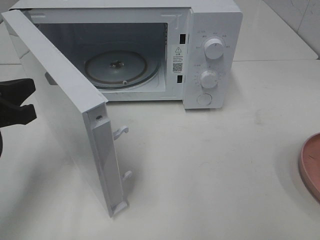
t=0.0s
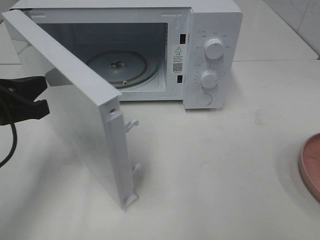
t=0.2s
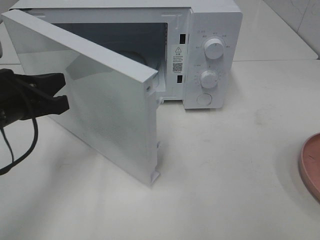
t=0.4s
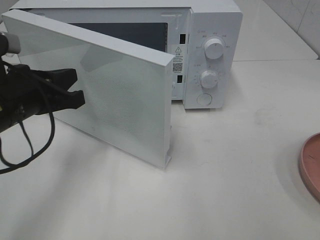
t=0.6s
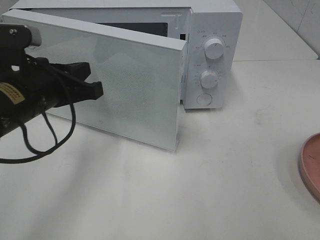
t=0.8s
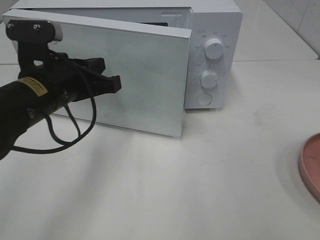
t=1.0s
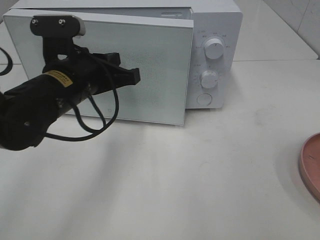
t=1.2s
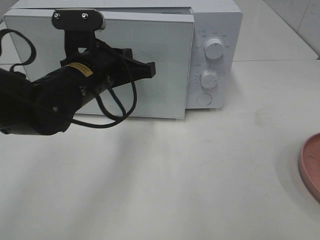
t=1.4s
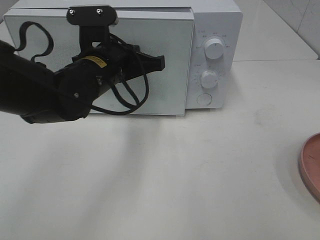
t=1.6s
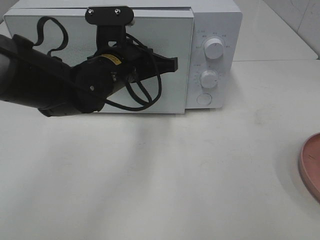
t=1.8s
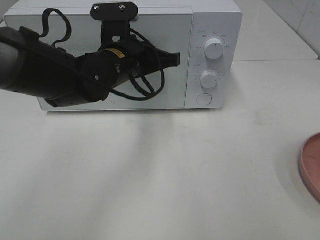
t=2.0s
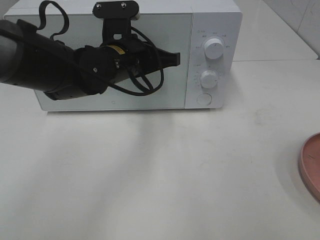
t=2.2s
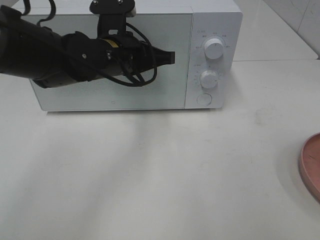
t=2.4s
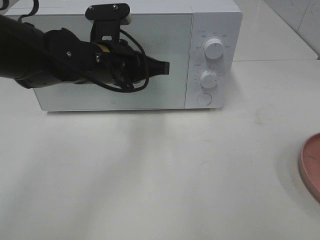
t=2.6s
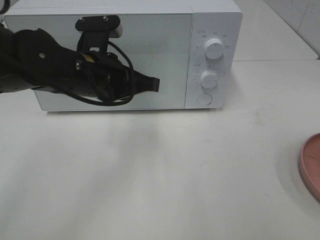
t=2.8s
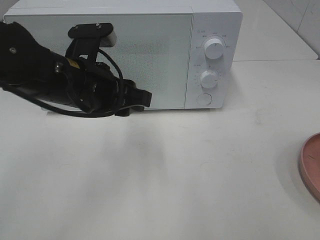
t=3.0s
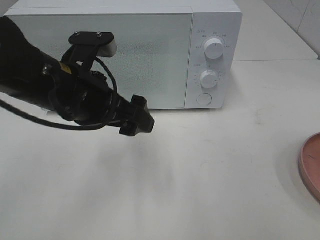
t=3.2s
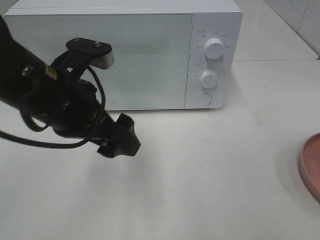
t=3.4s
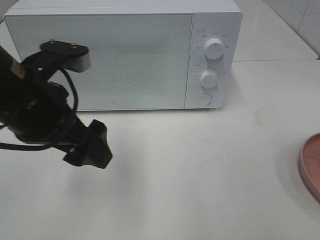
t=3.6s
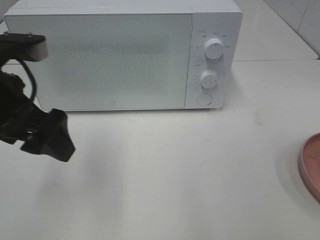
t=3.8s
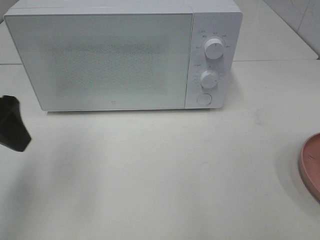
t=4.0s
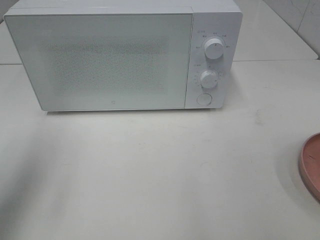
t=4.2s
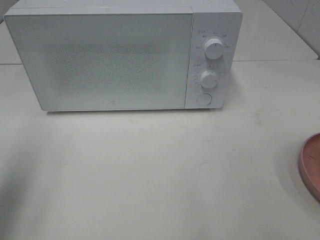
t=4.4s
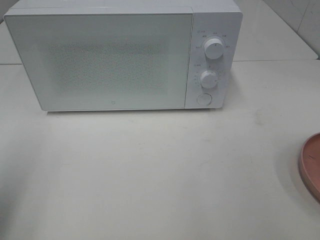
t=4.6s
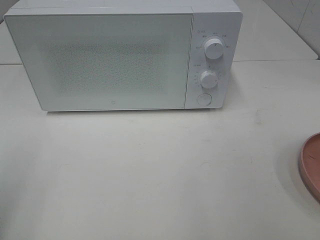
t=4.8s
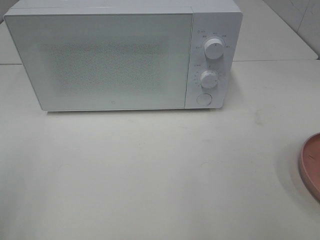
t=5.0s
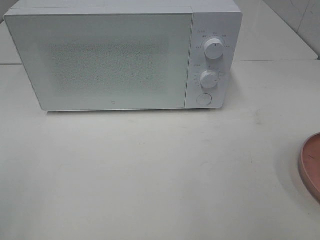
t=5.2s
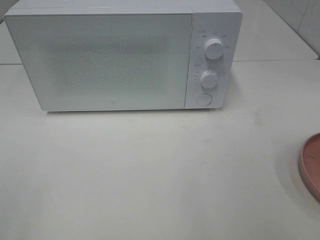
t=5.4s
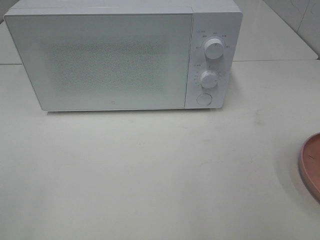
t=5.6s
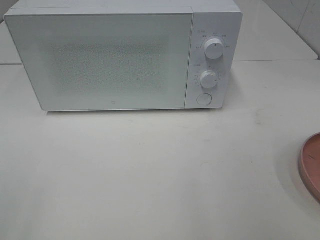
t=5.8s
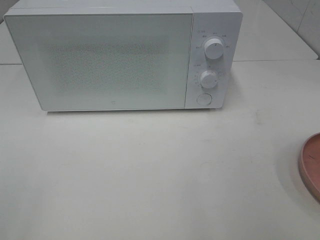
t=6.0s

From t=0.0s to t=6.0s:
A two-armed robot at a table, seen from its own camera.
Task of the whole recording: Heat the burger.
Step, from t=0.0s to t=2.8s: Left hand: close the microwave door.
From t=0.0s to t=1.6s: The left gripper is displaced to the right and forward by about 20 cm.
From t=1.6s to t=3.0s: The left gripper is displaced backward by about 5 cm, and opens its fingers.
From t=3.0s to t=4.4s: The left gripper goes some 25 cm to the left, backward and upward, and opens.
From t=4.4s to t=6.0s: The left gripper heads backward, covering some 15 cm.

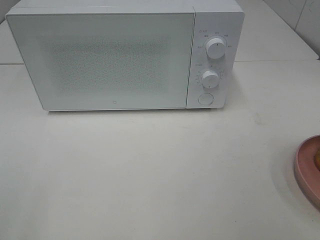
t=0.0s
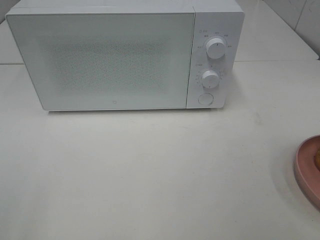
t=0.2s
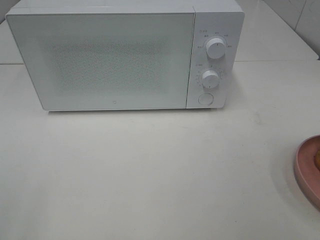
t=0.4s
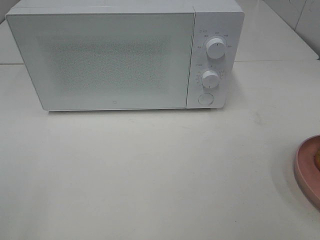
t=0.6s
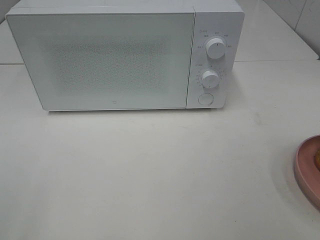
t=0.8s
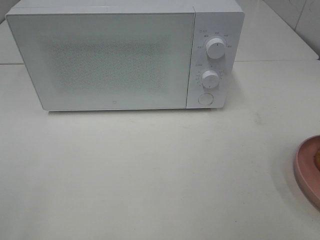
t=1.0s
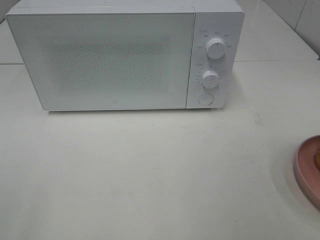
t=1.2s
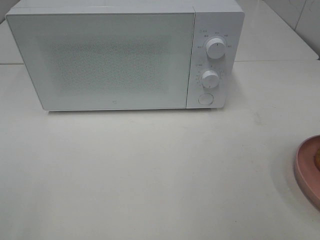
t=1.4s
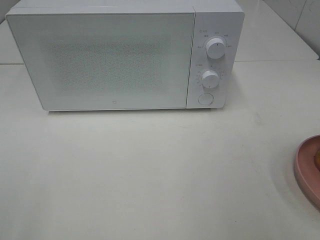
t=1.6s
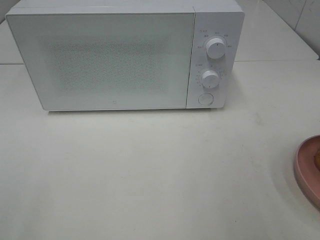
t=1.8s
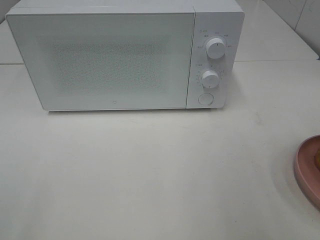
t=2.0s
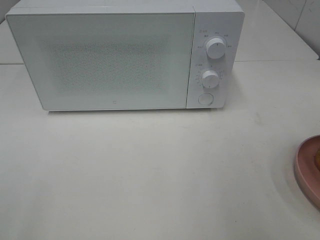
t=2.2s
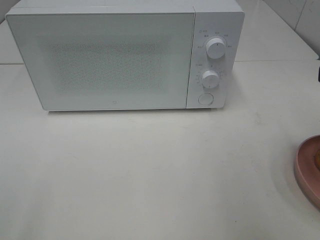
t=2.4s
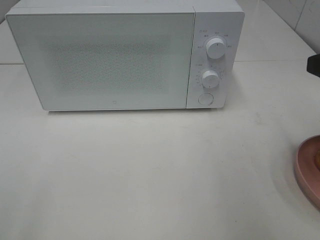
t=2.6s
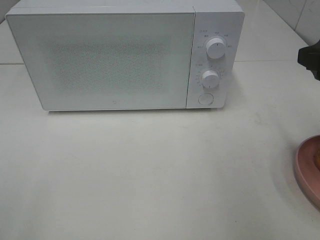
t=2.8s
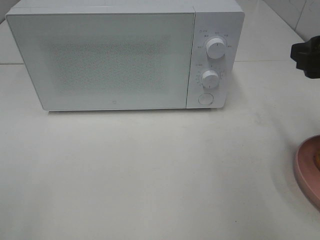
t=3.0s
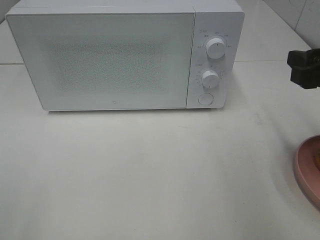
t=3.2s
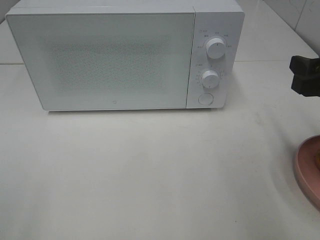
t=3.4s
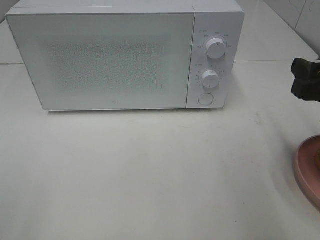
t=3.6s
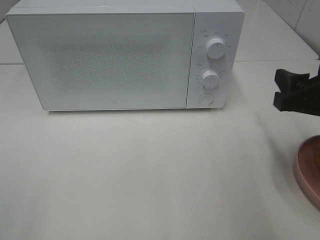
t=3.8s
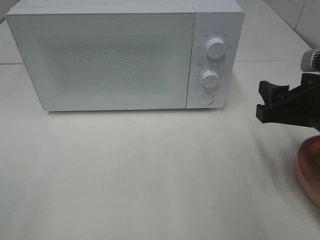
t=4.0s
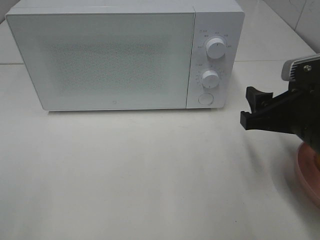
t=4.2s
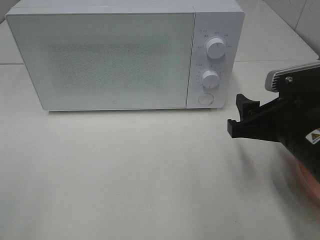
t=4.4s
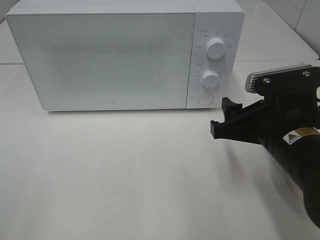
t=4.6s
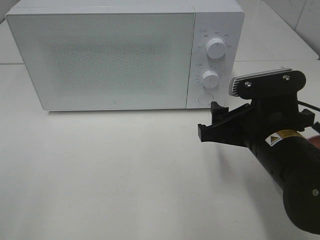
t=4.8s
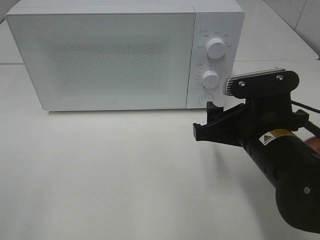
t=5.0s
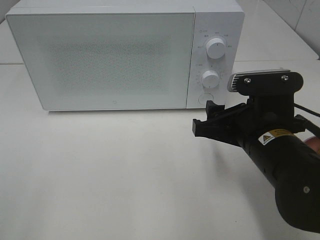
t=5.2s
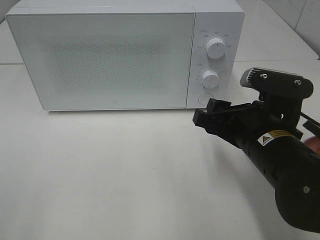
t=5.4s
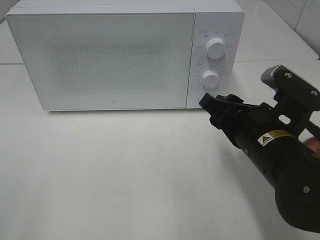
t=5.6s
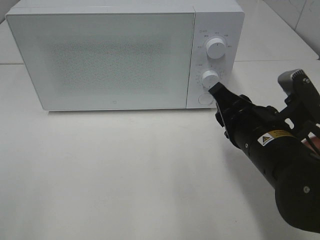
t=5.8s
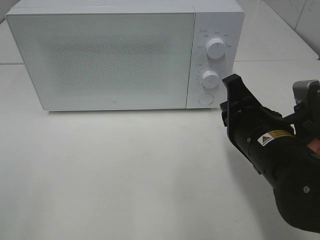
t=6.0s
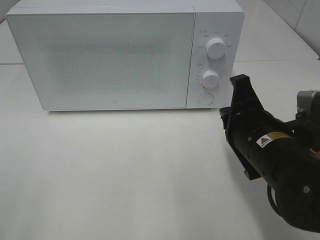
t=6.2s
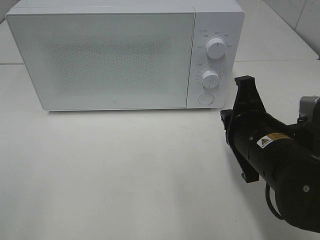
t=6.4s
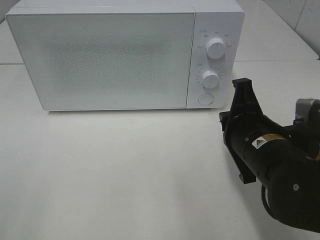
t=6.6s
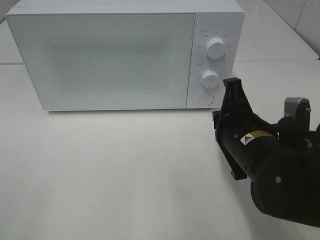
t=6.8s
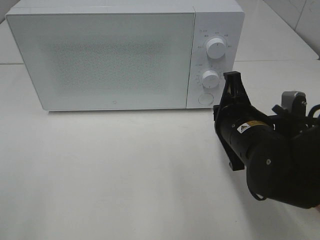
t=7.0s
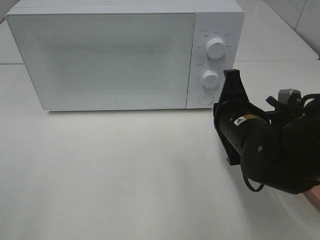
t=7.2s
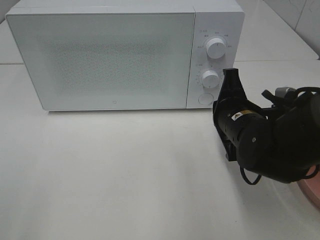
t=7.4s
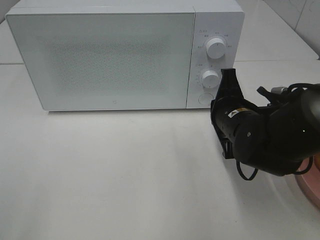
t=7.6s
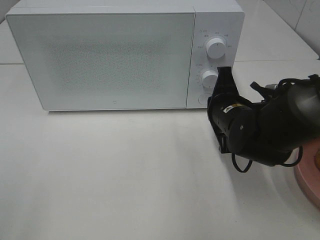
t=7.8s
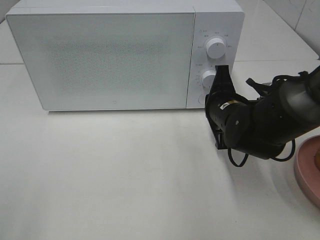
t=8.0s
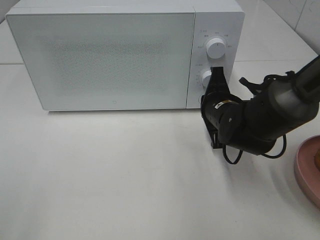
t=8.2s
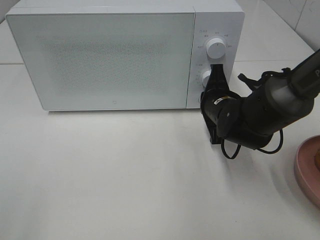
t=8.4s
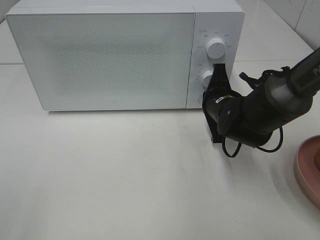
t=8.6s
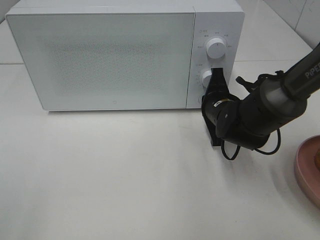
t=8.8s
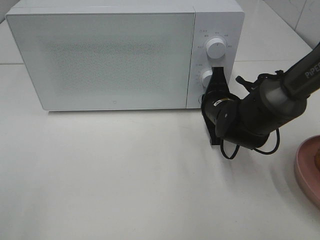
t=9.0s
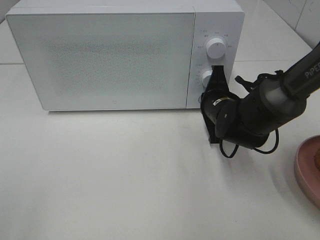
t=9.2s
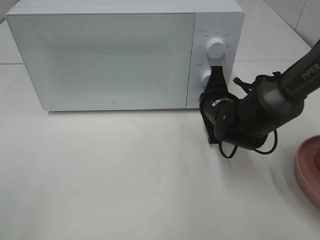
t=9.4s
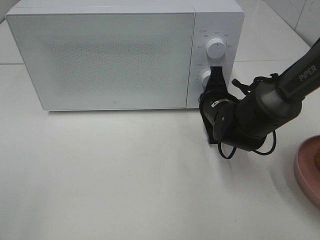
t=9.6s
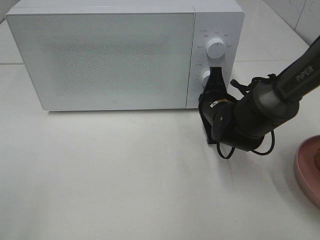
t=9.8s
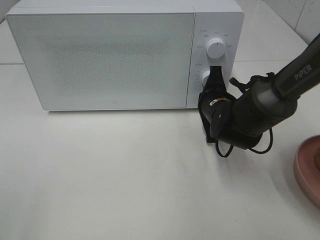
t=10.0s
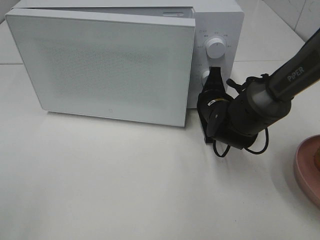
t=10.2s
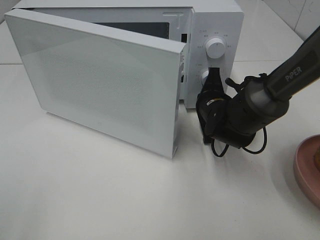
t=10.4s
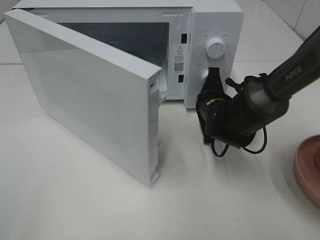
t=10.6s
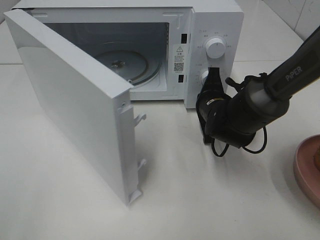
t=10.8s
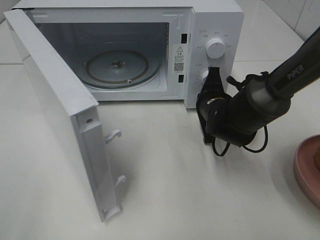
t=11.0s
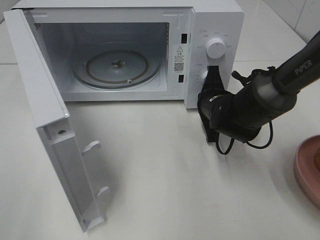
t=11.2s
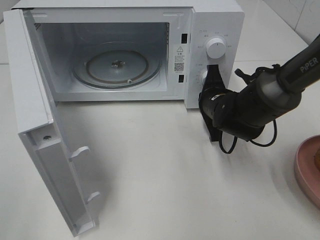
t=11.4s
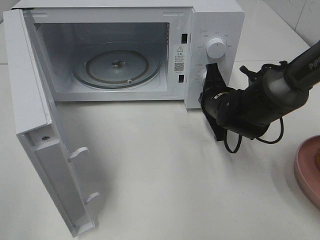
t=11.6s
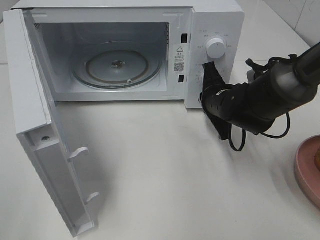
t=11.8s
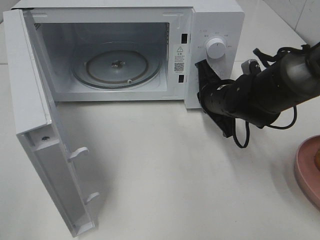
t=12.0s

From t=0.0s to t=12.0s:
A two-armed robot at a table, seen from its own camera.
Task of the whole recording: Heat the burger.
Step, from t=0.0s to t=12.0s: Right hand: press the switch.
From t=1.6s to t=3.0s: The right gripper travels forward by approximately 15 cm.
From t=3.0s to t=4.4s: The right gripper heads downward and to the left, covering about 10 cm.
From t=4.4s to t=6.0s: The right gripper changes place by some 5 cm, and closes.
From t=6.0s to t=7.6s: The right gripper moves forward, some 10 cm.
From t=7.6s to t=9.0s: The right gripper heads forward, covering approximately 5 cm.
From t=9.0s to t=10.4s: The grippers move only a little.

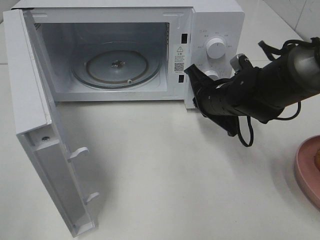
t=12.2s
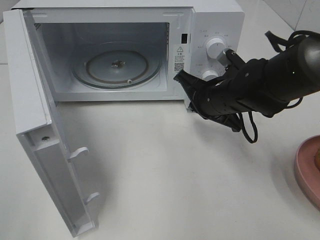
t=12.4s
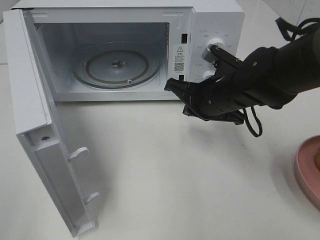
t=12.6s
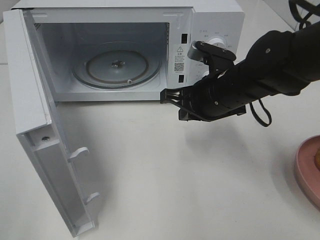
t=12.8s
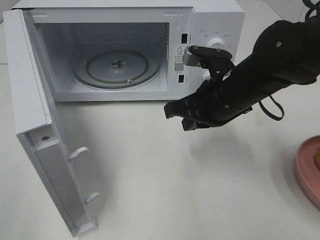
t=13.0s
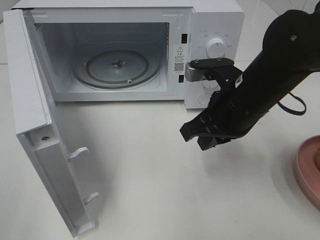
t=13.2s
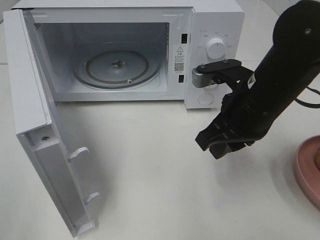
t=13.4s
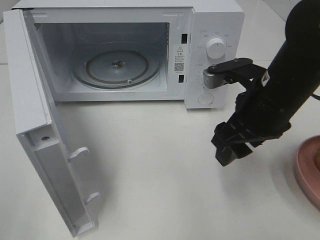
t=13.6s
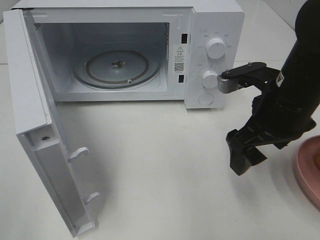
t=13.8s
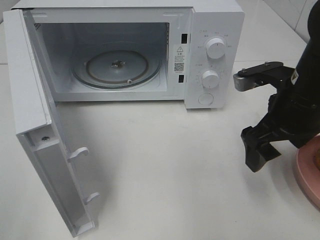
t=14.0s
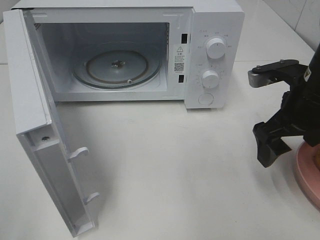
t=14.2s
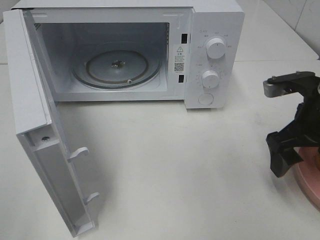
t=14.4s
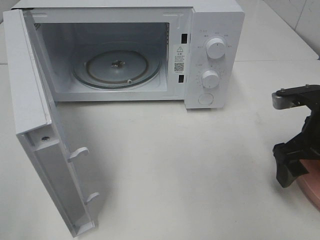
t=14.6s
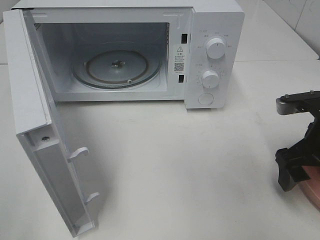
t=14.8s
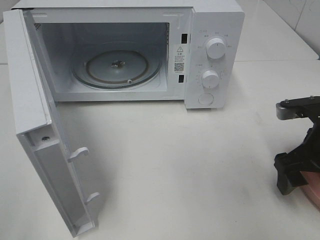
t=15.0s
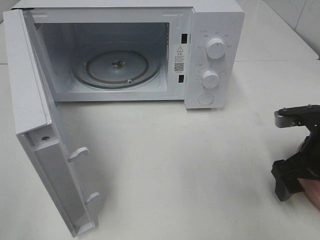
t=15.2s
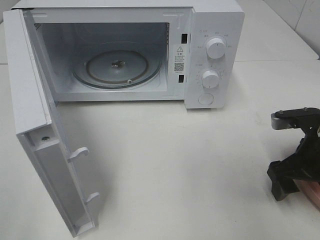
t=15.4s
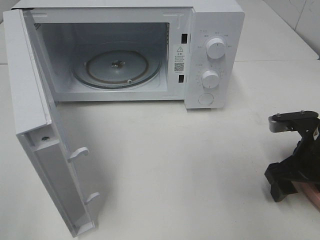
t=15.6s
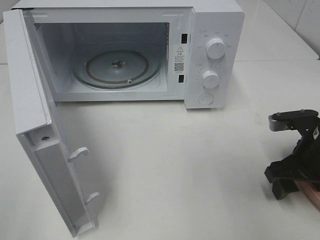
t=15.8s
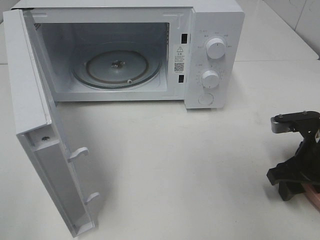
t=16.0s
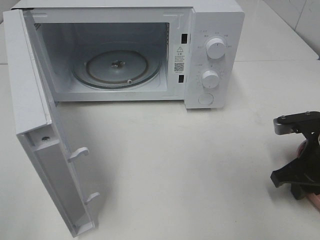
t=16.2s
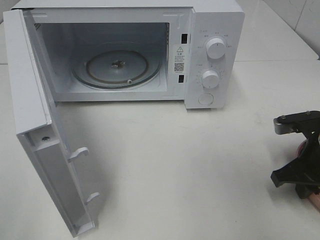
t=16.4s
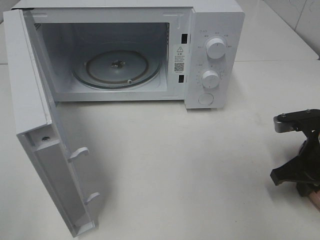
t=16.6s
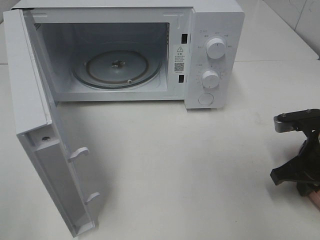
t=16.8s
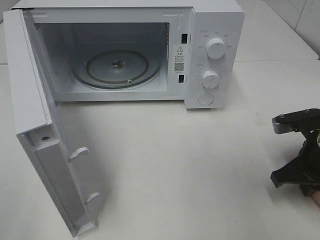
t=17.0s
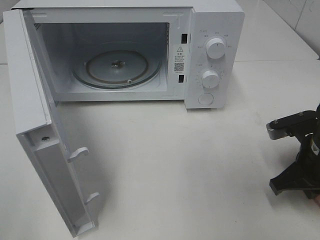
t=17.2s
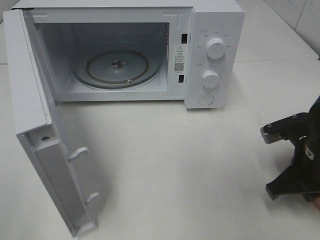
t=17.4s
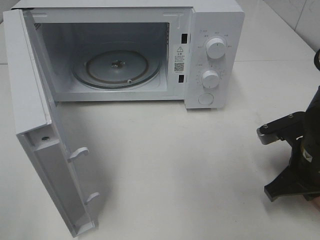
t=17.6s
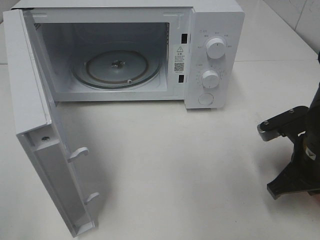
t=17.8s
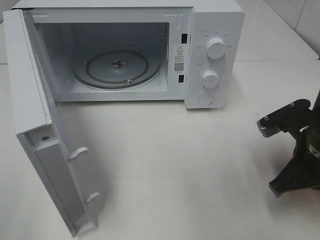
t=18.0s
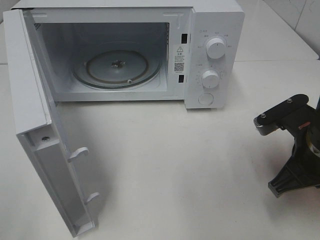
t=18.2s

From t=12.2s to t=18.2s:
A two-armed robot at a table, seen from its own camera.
Task of the whole recording: Heat the burger.
Step, from t=12.2s to t=16.8s: Right hand: grab the plate with the hamburger.
From t=12.2s to t=13.8s: The right gripper shifts about 10 cm backward and upward, and opens up.
From t=13.8s to t=15.2s: The right gripper travels to the right and downward by about 10 cm.
From t=15.2s to t=16.6s: The right gripper closes its fingers.
From t=16.6s to t=18.2s: The right gripper moves to the left, approximately 5 cm.
